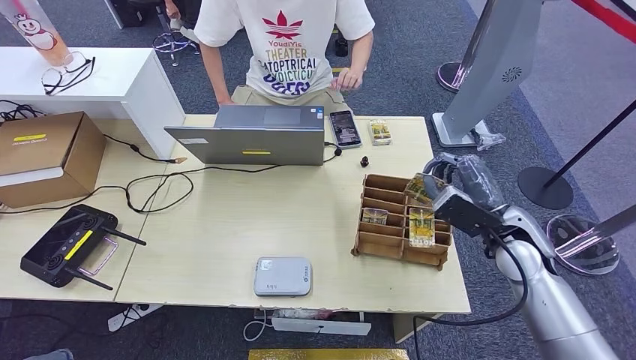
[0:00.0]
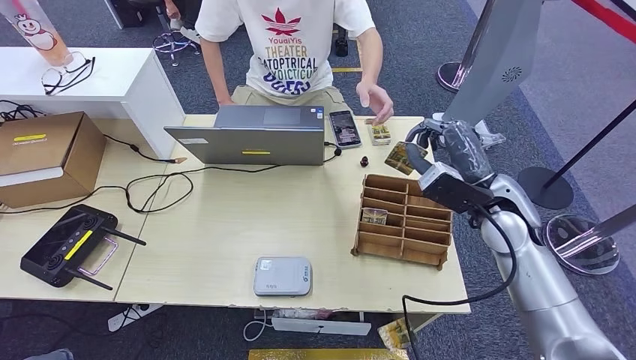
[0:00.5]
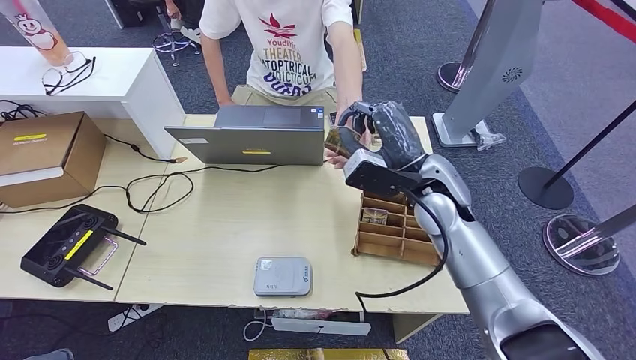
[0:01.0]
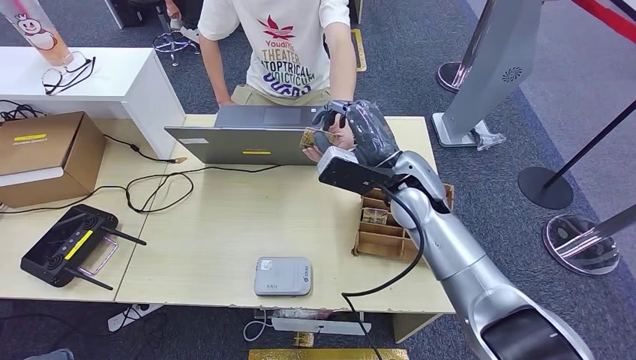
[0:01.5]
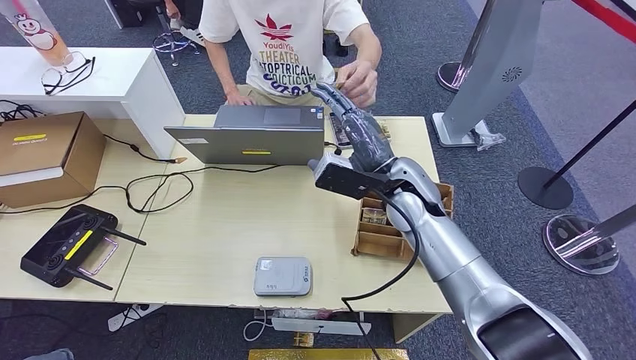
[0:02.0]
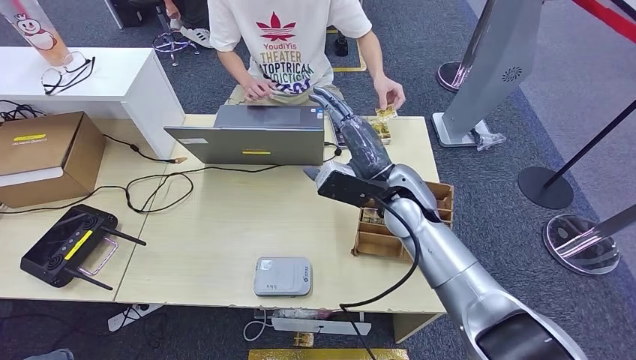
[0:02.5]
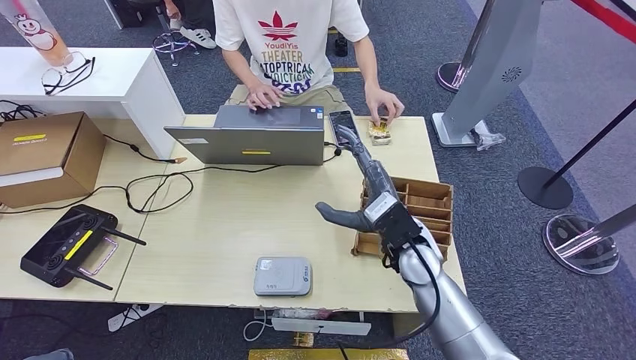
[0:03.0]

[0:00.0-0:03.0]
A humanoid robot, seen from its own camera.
Step, 0:00.0 to 0:03.0: Hand the room key to the person.
0:00.0 to 0:01.5: The right hand goes approximately 20 cm to the left and forward.
0:01.5 to 0:03.0: The right hand is displaced downward and backward by roughly 10 cm.
